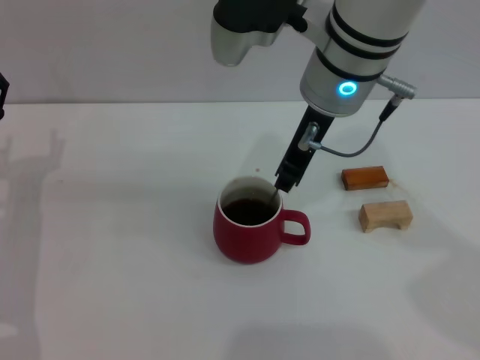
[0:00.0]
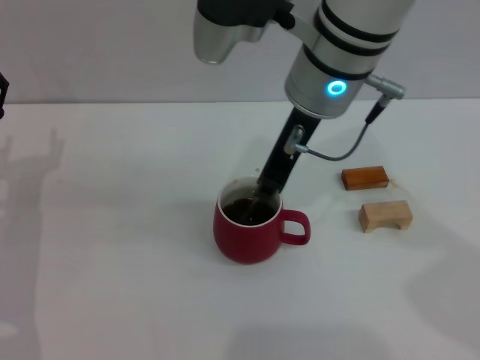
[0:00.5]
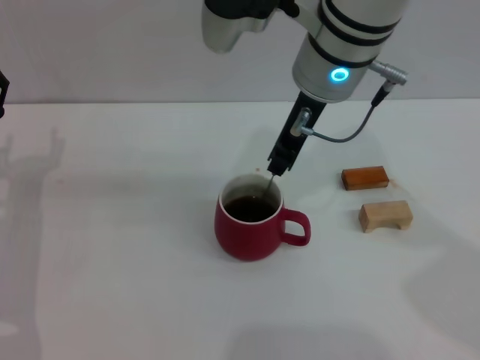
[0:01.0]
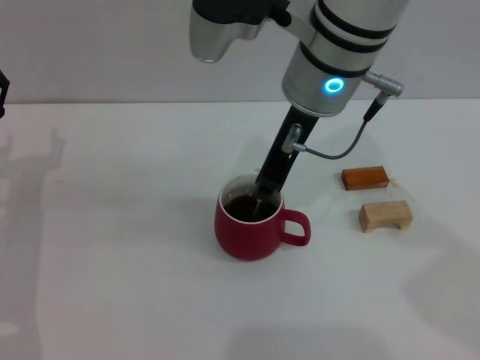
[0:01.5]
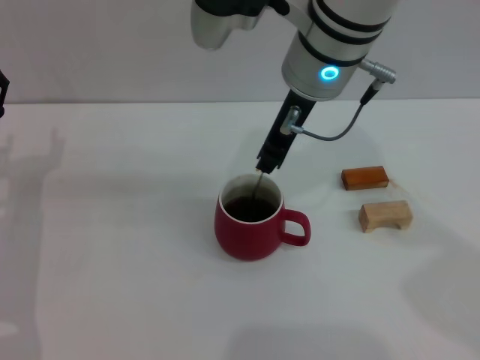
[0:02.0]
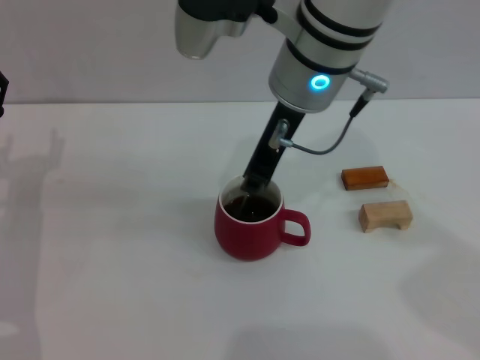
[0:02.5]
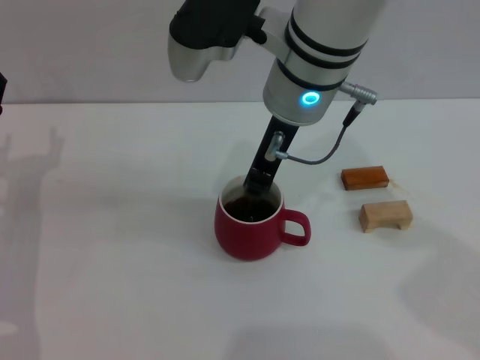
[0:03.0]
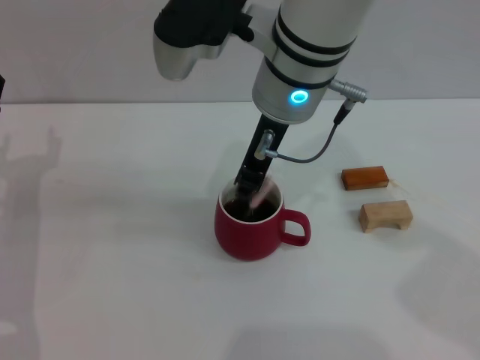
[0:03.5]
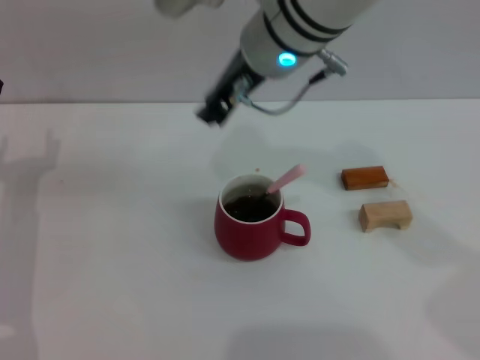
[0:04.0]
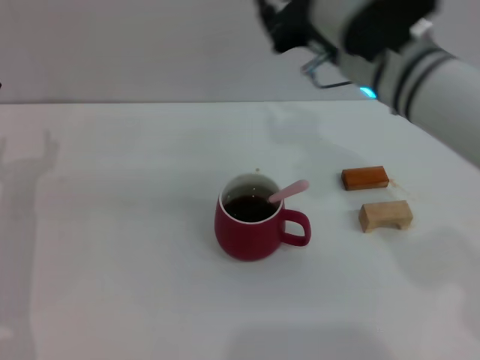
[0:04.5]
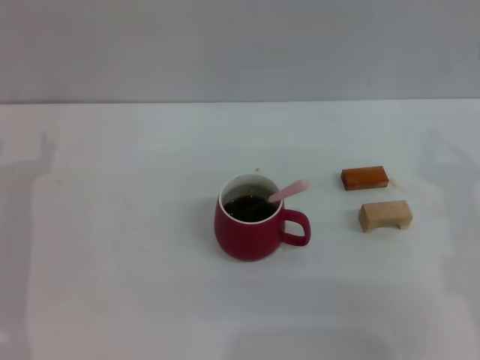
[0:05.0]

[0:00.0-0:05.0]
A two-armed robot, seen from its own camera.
Task of the whole recording: Move the red cup to the center, lift the pink spoon, stir it three times in the cup, and put the spoon into the cup.
0:00.0 to 0:02.5: The grippers move only a little.
0:02.5 to 0:05.0: The right gripper is displaced to the right, downward and backward by approximately 25 cm.

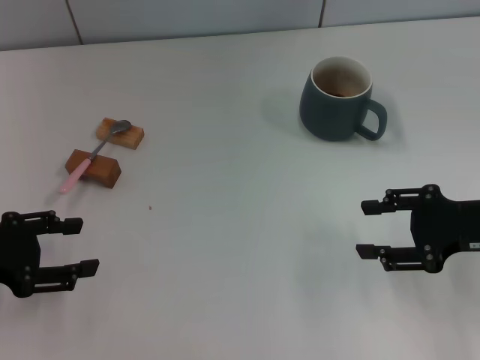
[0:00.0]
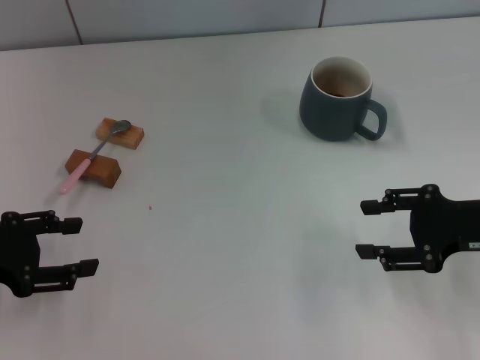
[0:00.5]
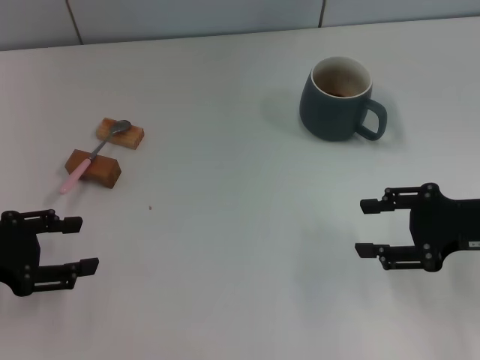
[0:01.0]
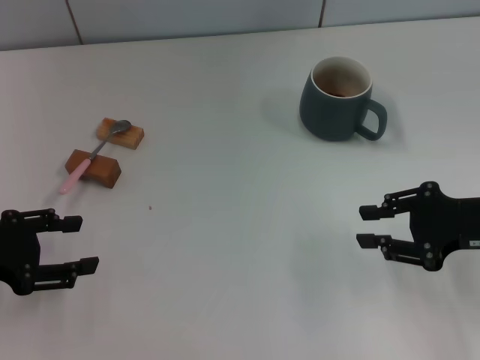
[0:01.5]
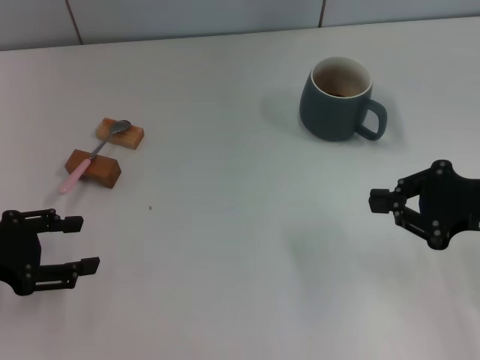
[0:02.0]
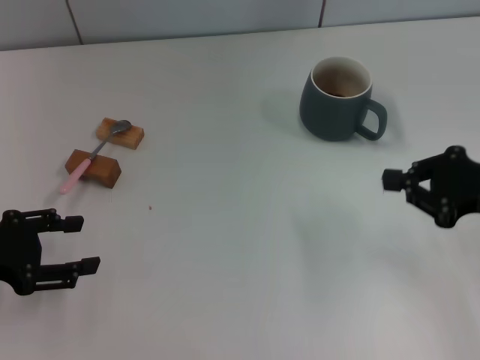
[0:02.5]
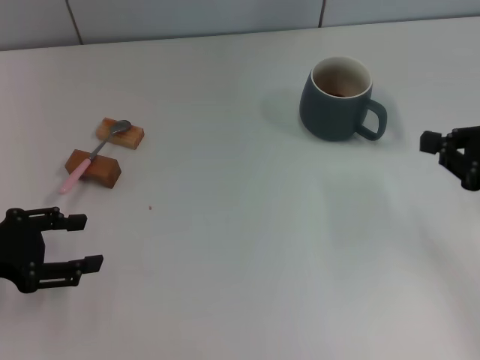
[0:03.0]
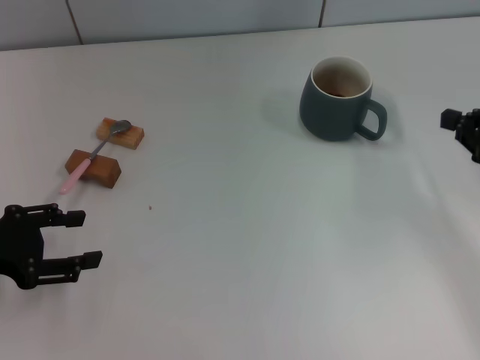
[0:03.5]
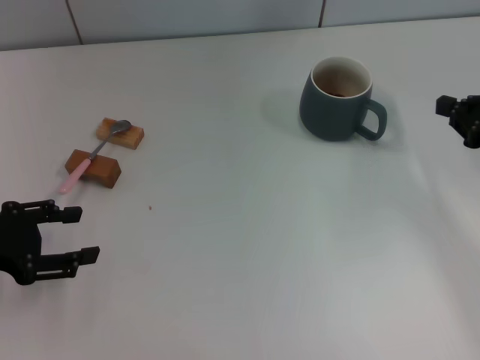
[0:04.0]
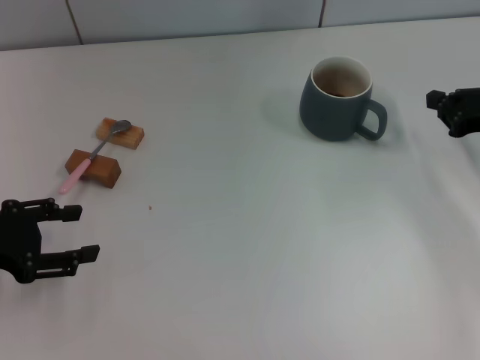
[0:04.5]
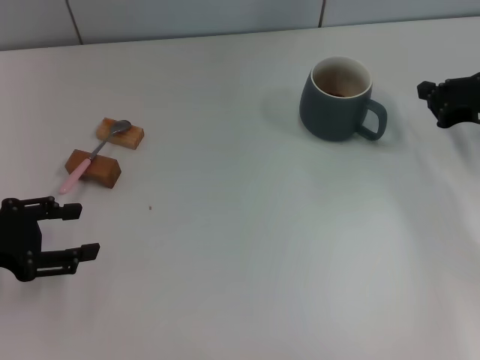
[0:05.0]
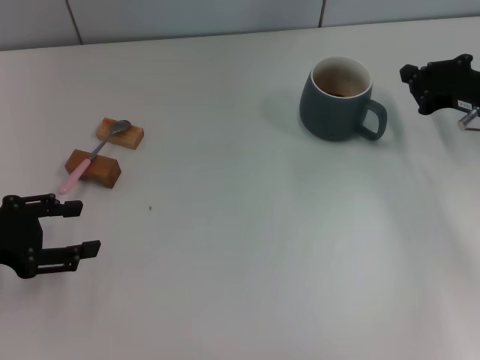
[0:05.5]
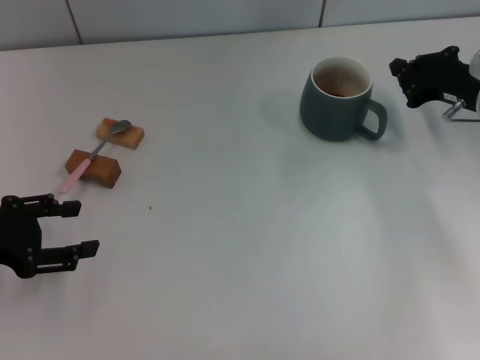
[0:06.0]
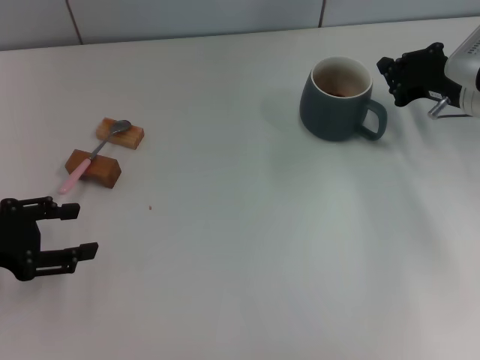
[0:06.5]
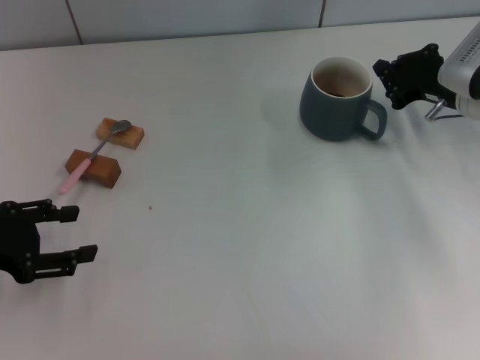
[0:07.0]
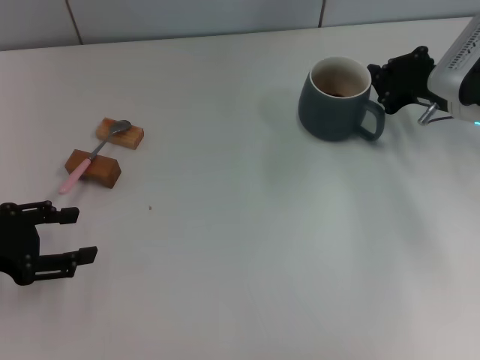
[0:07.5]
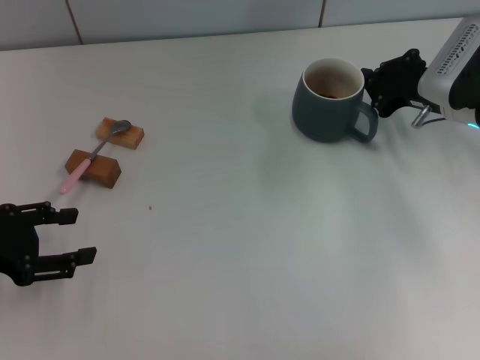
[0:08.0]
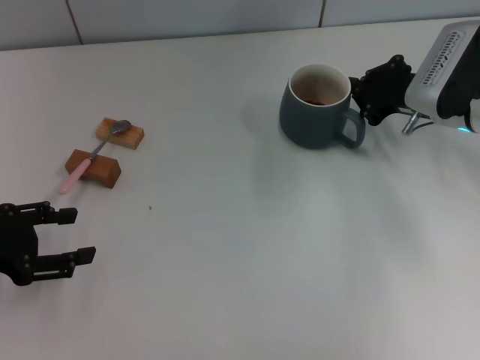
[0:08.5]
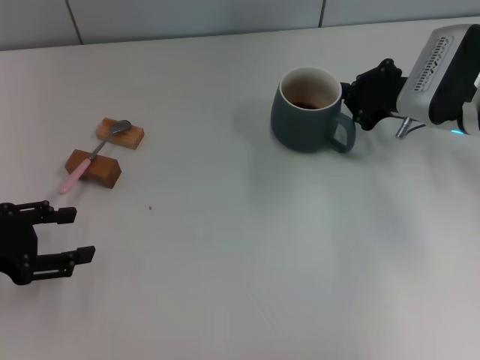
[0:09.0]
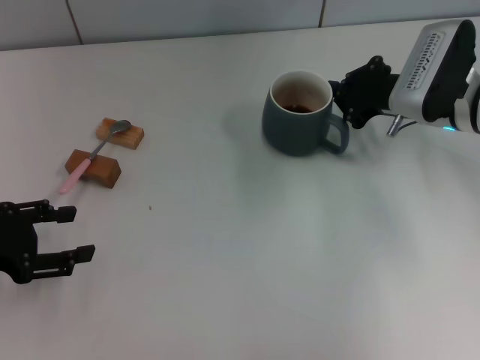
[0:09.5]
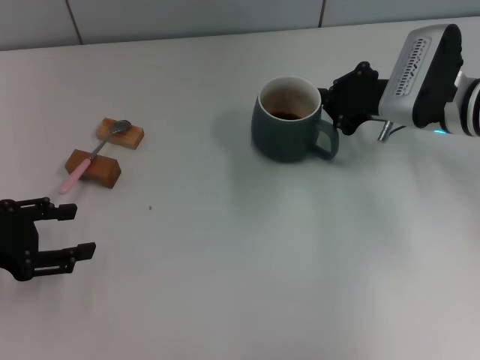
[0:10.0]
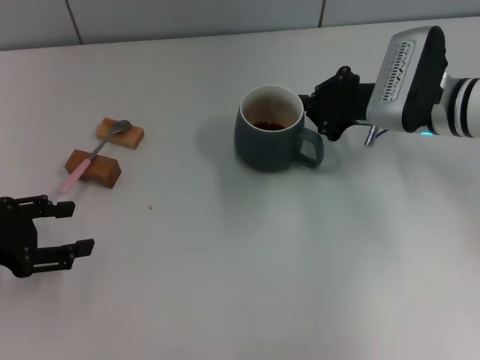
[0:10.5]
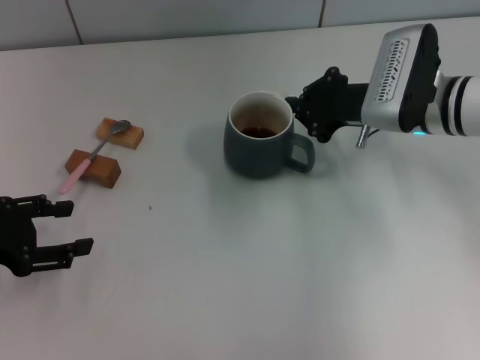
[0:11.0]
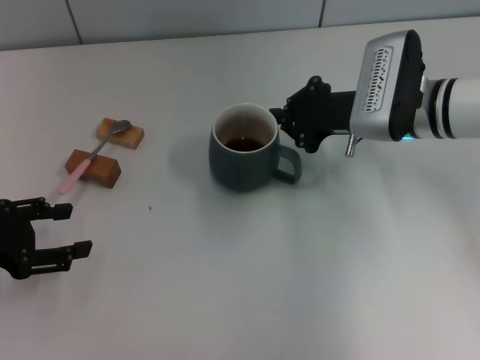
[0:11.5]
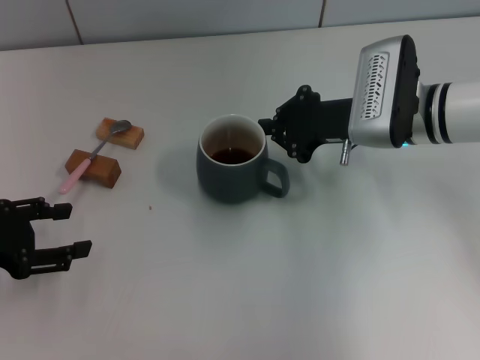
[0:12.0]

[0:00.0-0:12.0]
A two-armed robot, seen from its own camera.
Task of the whole recording: Move the grey cup to the center, lift the pink spoon, stir it three times in the cup, and put the spoon into the cup.
0:00.0 to 0:02.0: The right gripper closes its fingers.
0:02.0 to 0:04.0: The right gripper moves approximately 5 cm.
0:04.0 to 0:06.0: The right gripper shifts some 10 cm forward and to the left.
0:06.0 to 0:08.0: The grippers make only small movements.
0:08.0 to 0:10.0: The grippers move only a little.
0:10.0 to 0:12.0: The grippers move only a little.

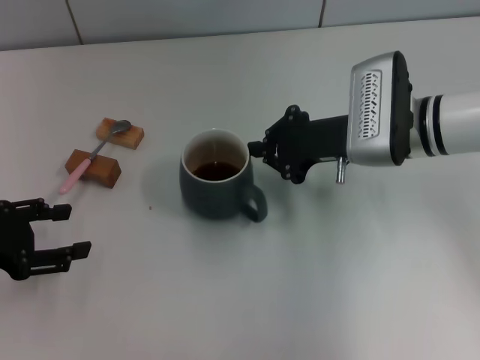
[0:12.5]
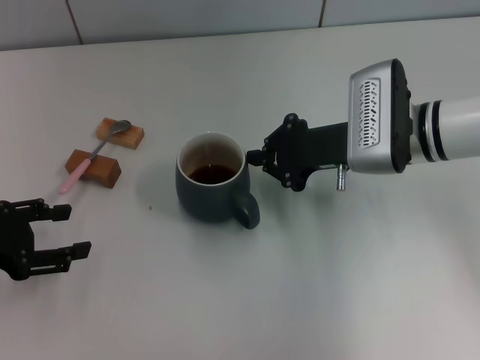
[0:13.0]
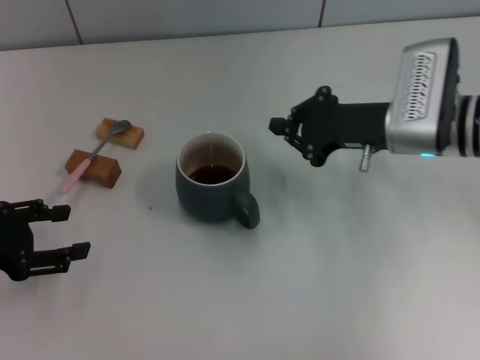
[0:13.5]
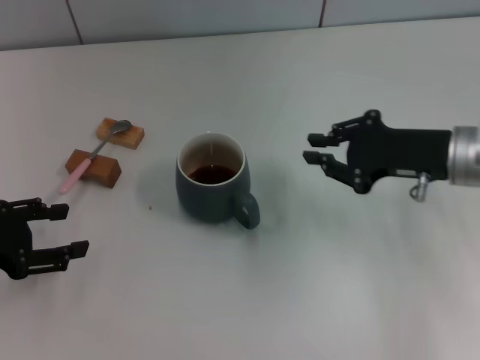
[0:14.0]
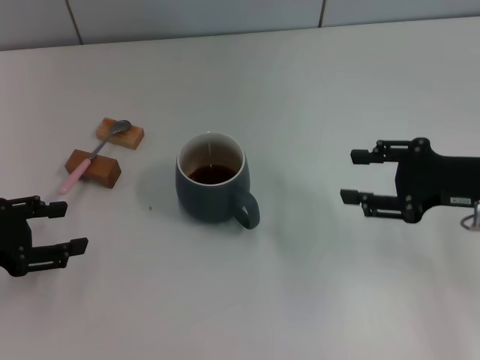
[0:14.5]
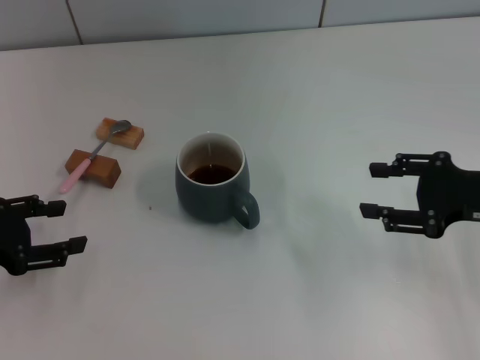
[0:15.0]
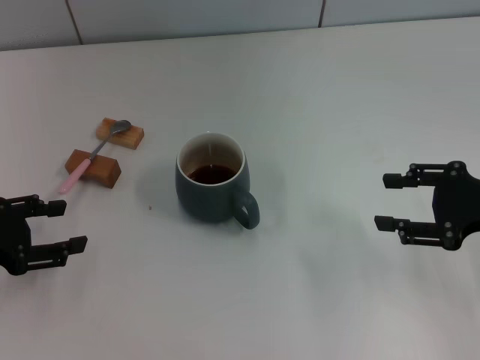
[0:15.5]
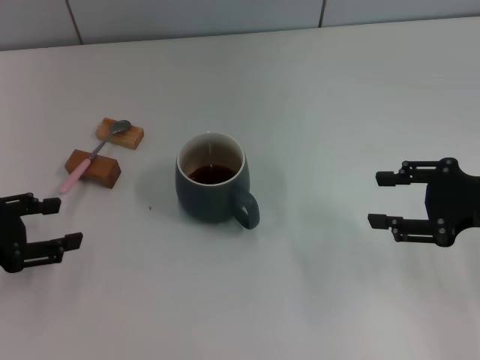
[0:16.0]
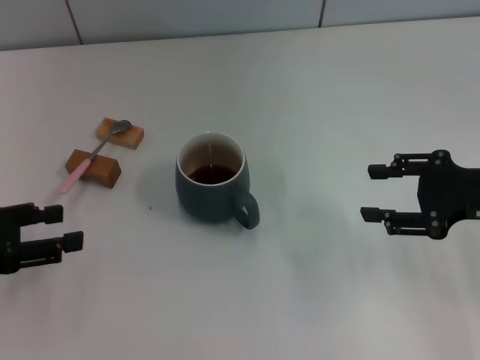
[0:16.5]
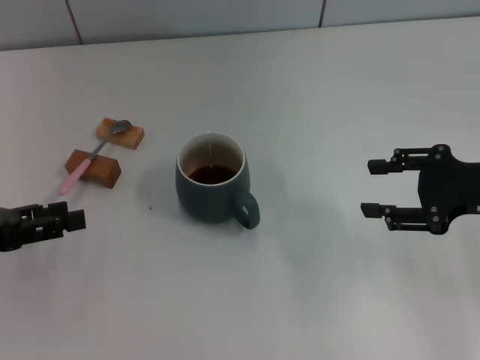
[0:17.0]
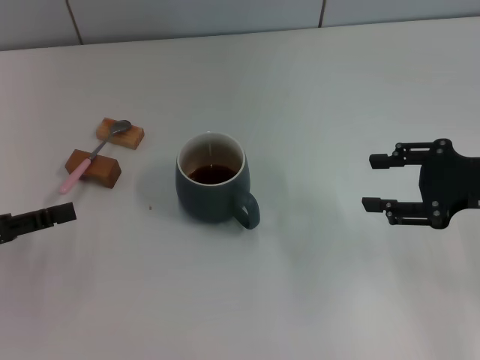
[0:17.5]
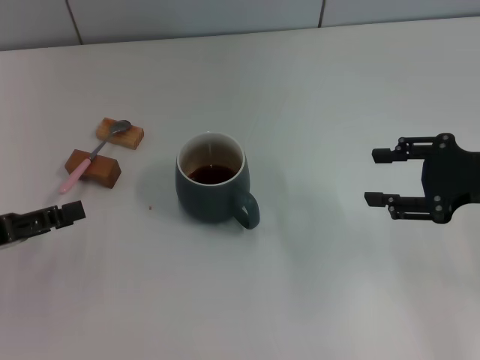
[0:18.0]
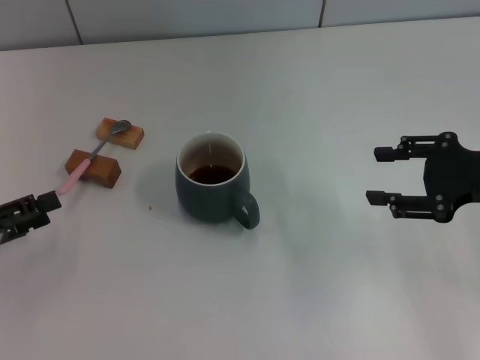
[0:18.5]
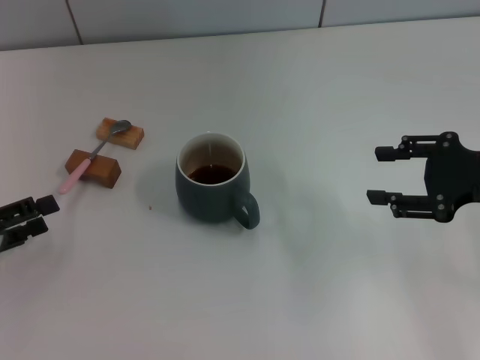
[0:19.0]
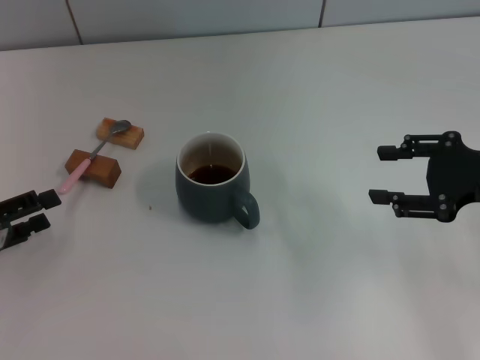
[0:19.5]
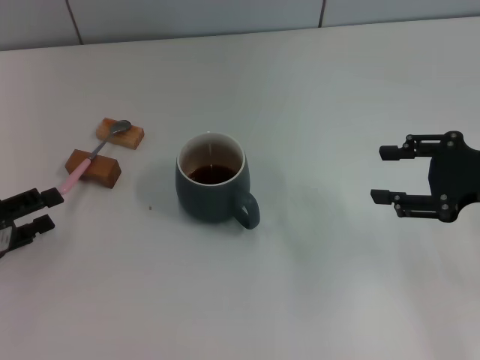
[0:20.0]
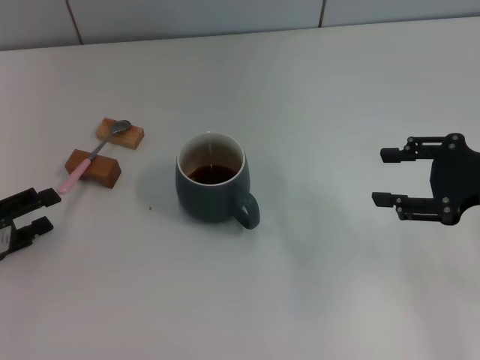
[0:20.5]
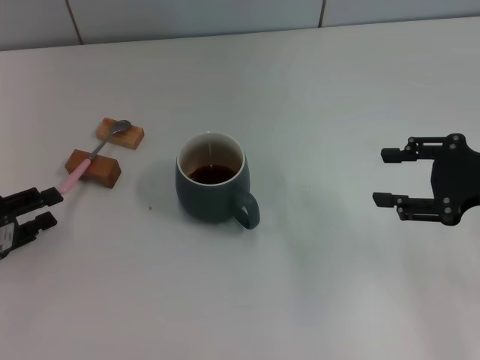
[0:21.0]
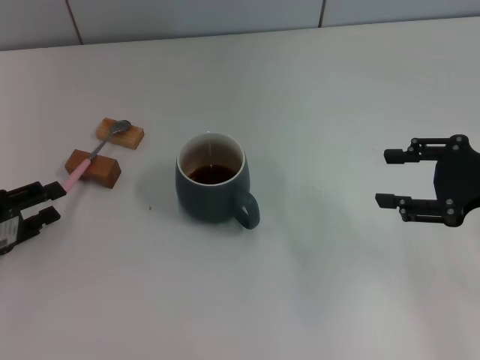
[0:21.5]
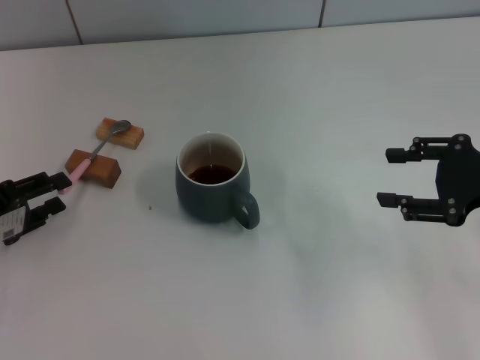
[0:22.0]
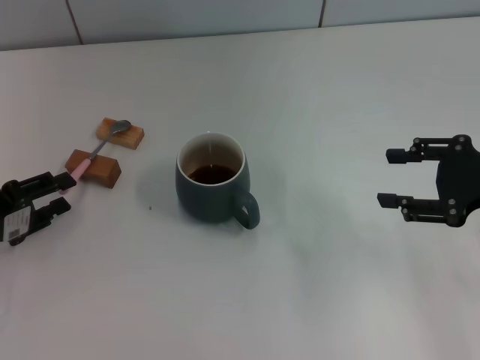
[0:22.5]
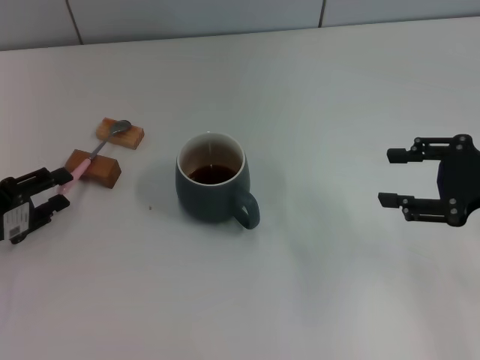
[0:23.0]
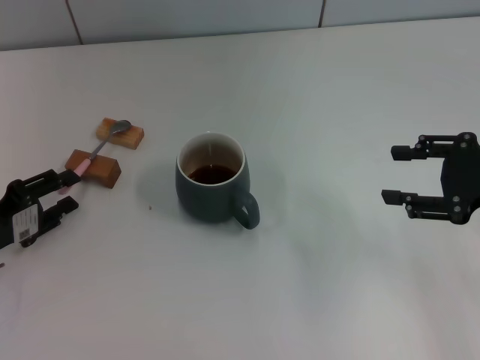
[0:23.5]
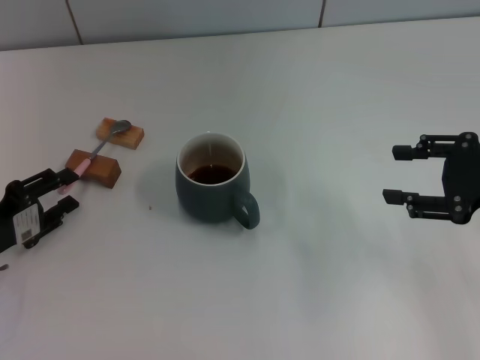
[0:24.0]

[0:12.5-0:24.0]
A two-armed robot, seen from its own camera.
Task of the whole recording: Move the grey cup to the center, lift the pink spoon, stir it three times in the cup, and put the spoon into the cup.
0:12.5 to 0:14.5: The right gripper moves to the right and backward, approximately 15 cm, and opens up.
0:14.5 to 0:16.5: The grippers make only small movements.
0:18.5 to 0:22.0: The grippers stay close to where they were, moving slightly.
0:22.0 to 0:24.0: There are only small adjustments of the grippers.
